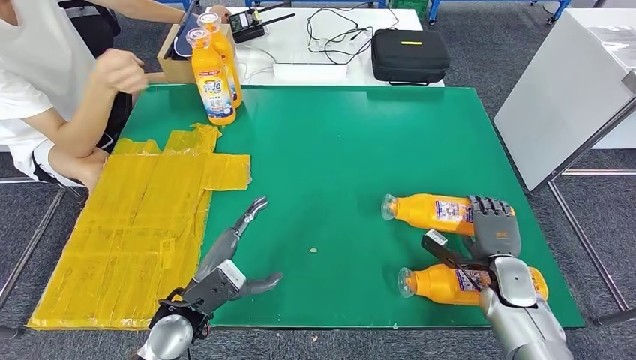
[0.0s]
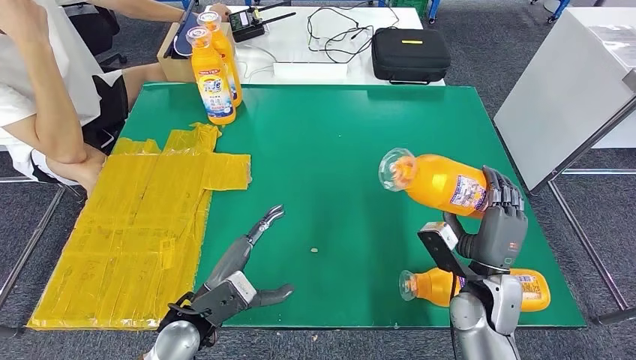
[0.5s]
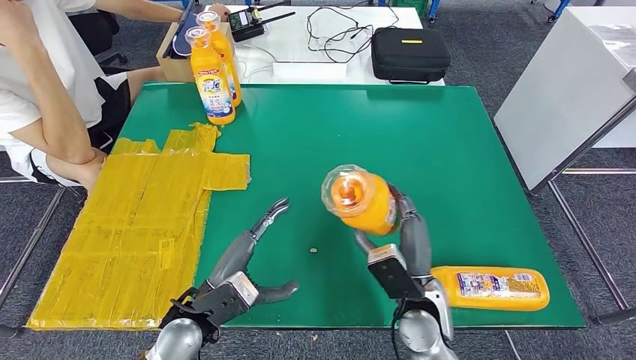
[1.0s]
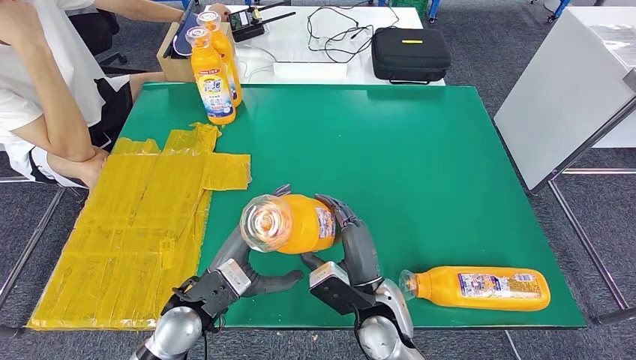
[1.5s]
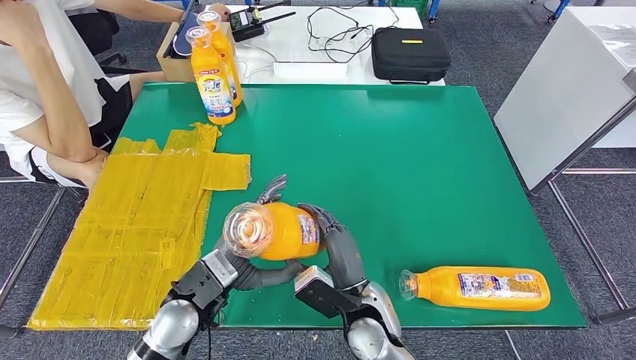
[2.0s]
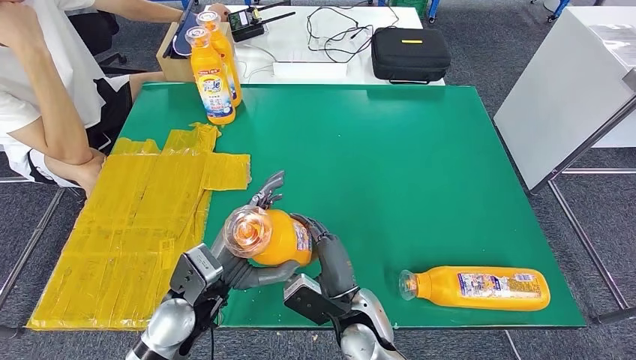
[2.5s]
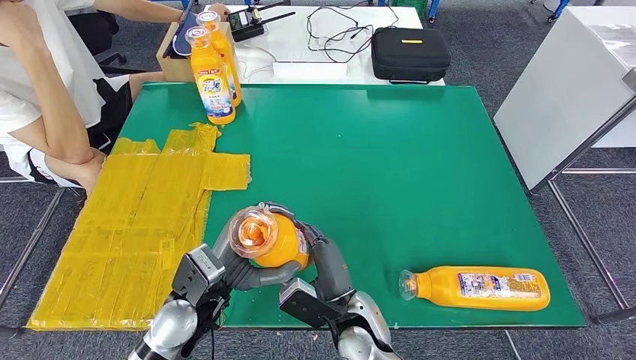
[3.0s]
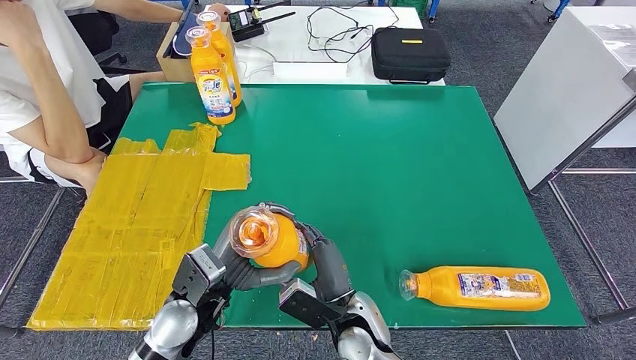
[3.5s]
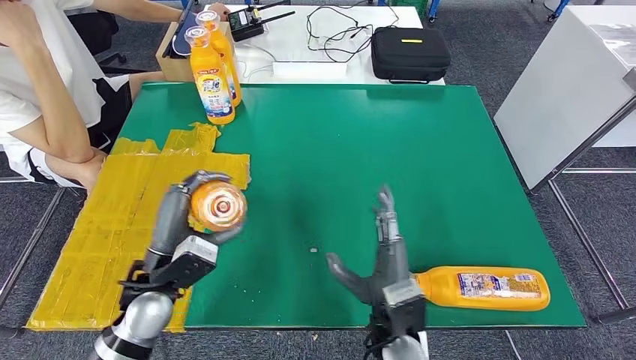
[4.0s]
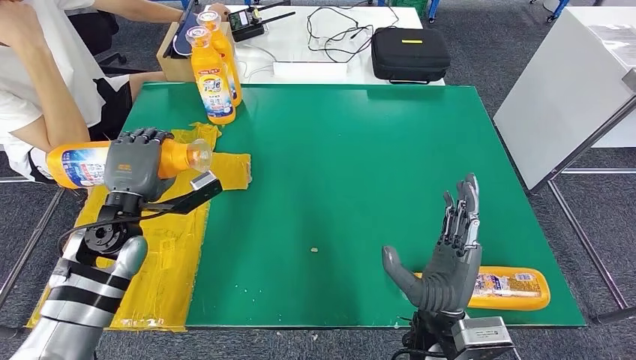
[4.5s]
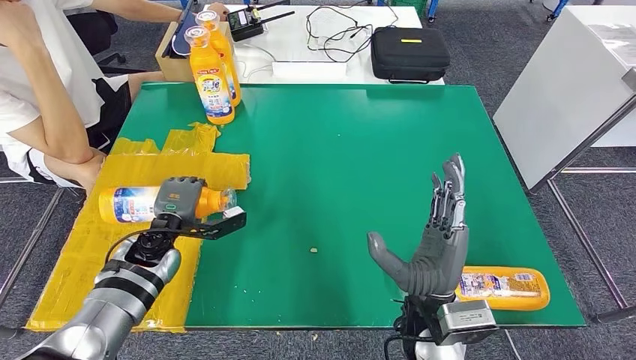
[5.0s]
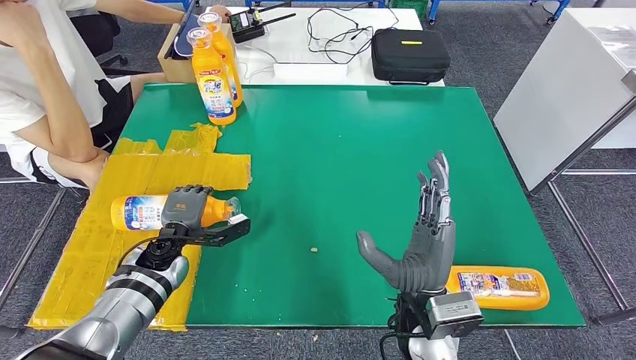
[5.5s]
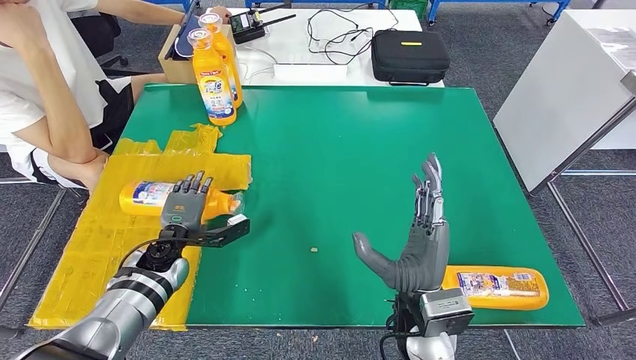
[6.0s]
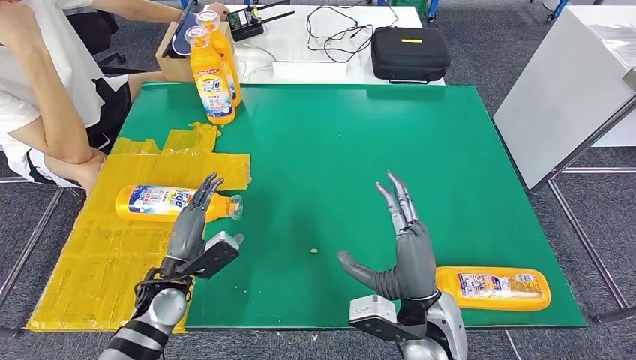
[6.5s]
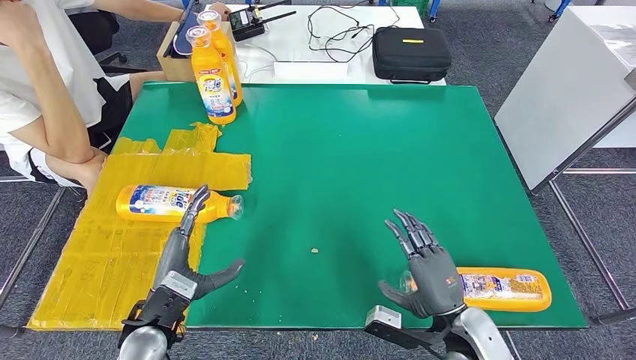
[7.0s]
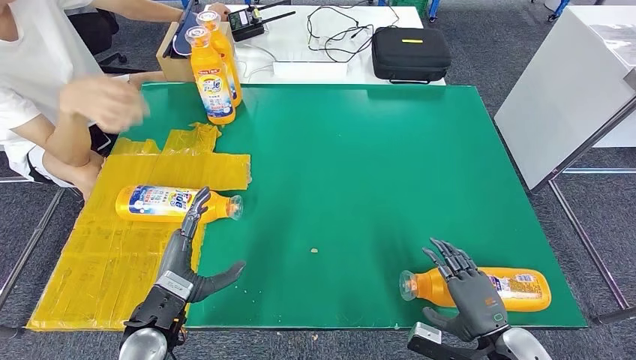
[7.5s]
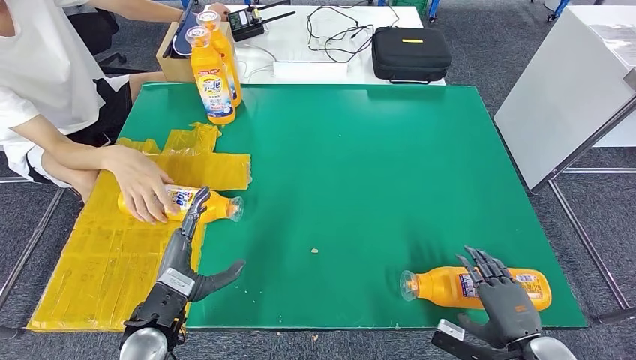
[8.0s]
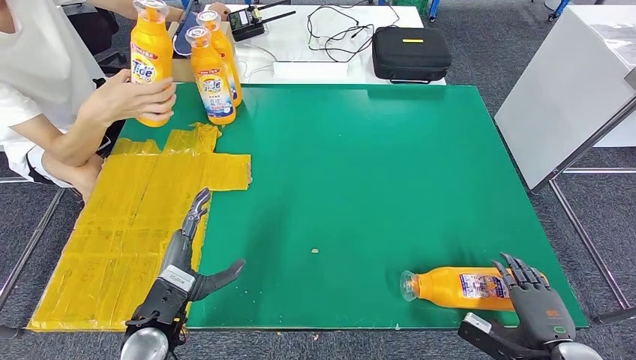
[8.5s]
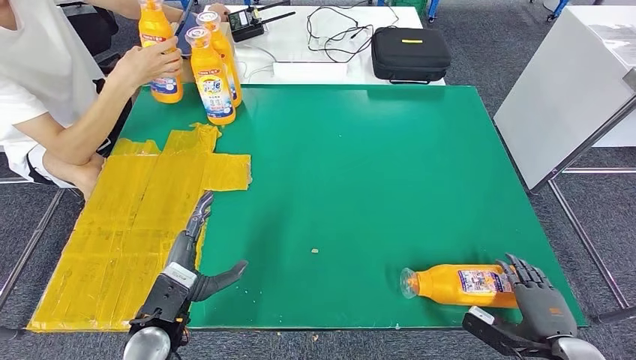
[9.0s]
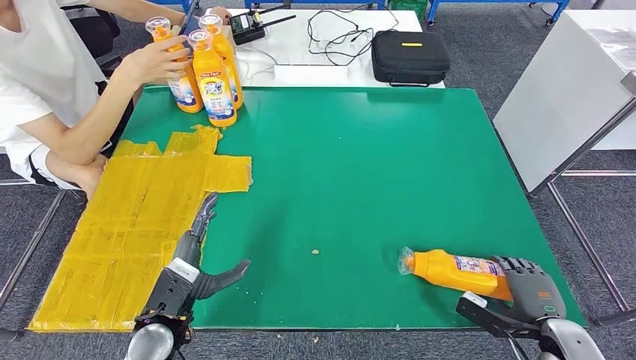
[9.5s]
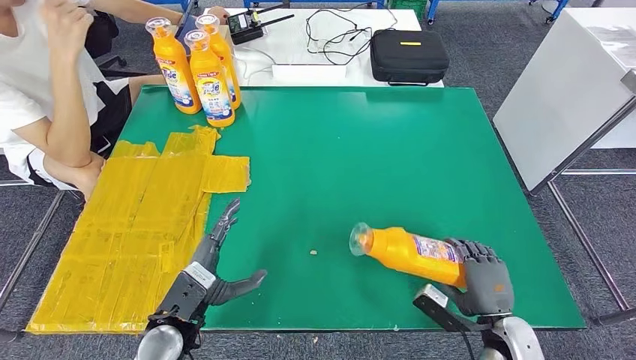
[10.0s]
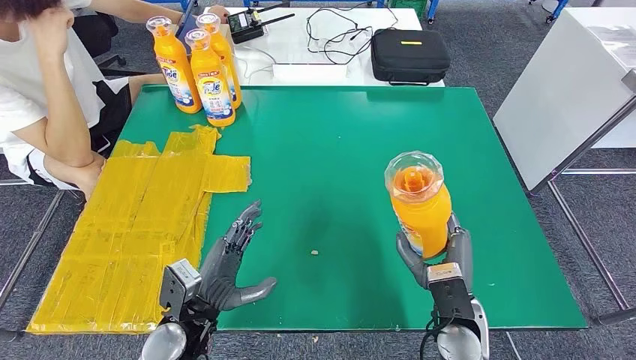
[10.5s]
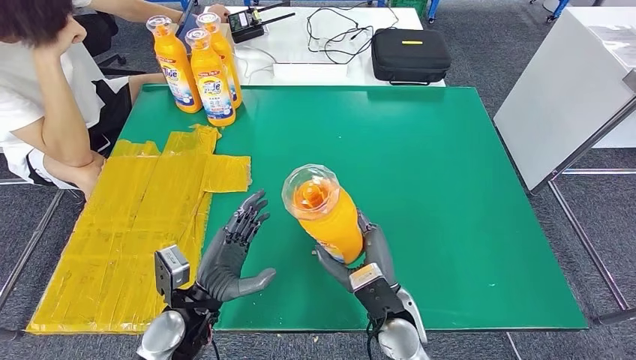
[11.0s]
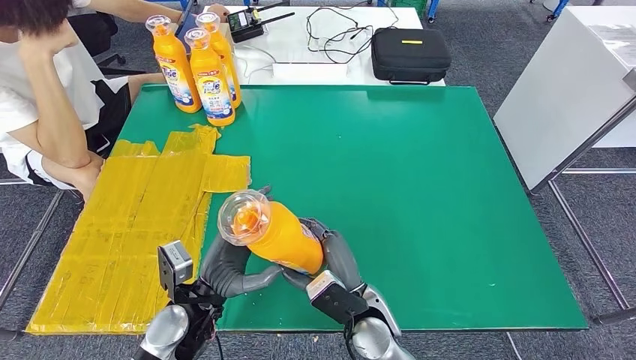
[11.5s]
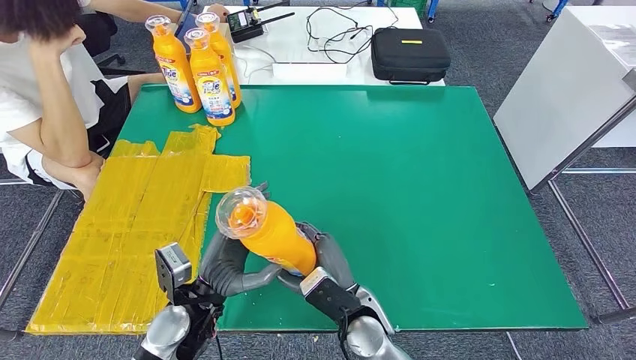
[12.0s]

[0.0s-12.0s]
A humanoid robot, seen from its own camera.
Step, 1.5s to 7.0s: Flip the fast-moving consumer goods bottle to the front side.
Step, 8.5s to 10.5s: Pick up the fast-moving consumer goods bottle from the table.
2.0s to 4.0s: The left hand heads to the left, covering about 5 cm.
10.0s to 12.0s: The right hand goes roughly 25 cm to the left.

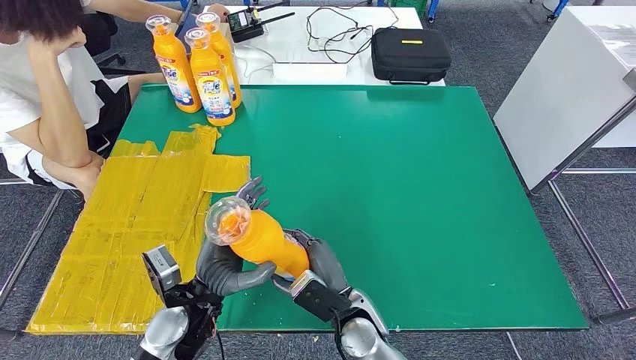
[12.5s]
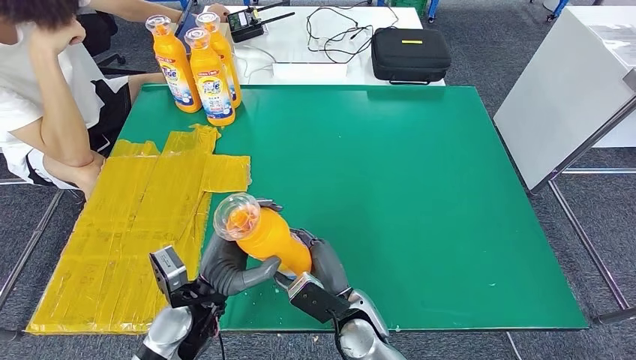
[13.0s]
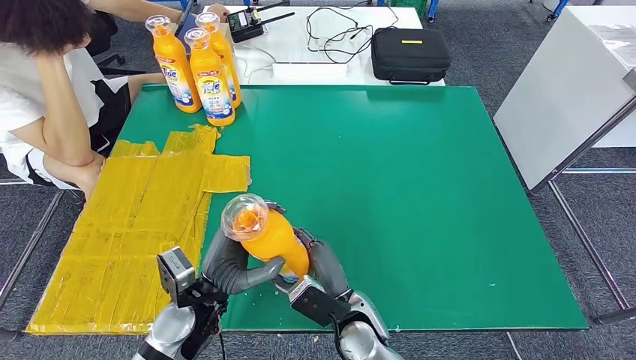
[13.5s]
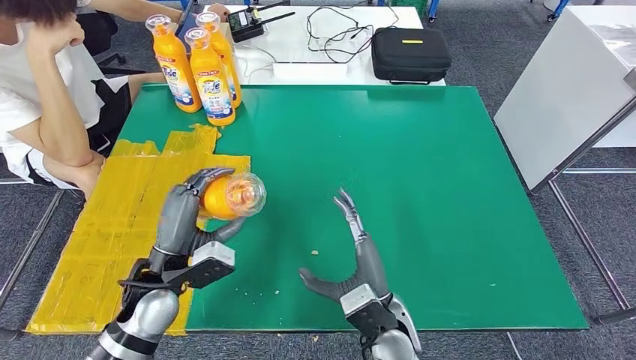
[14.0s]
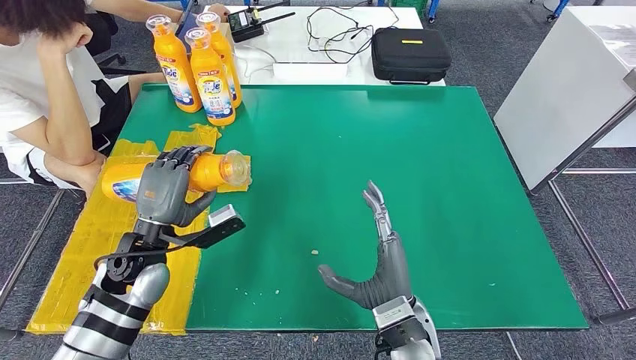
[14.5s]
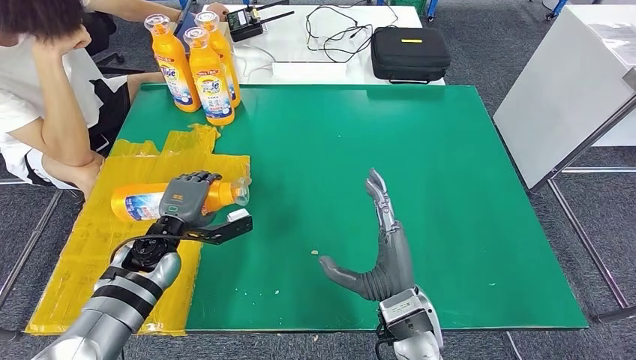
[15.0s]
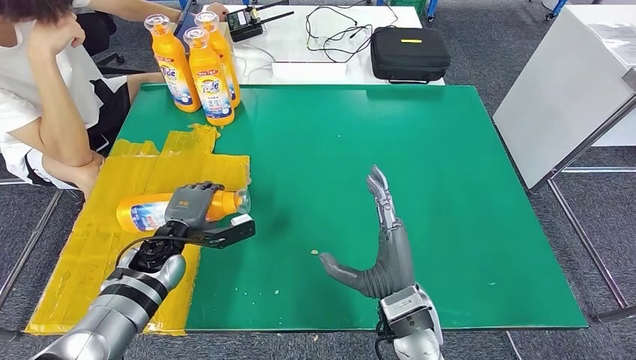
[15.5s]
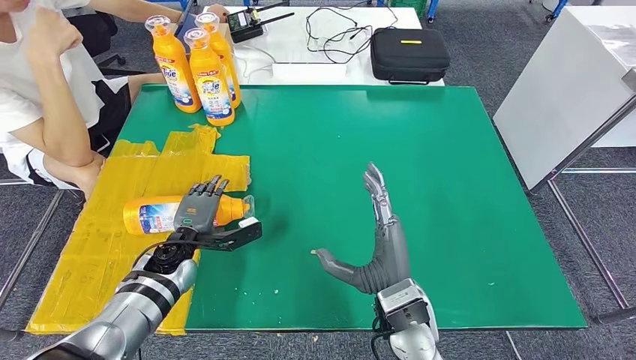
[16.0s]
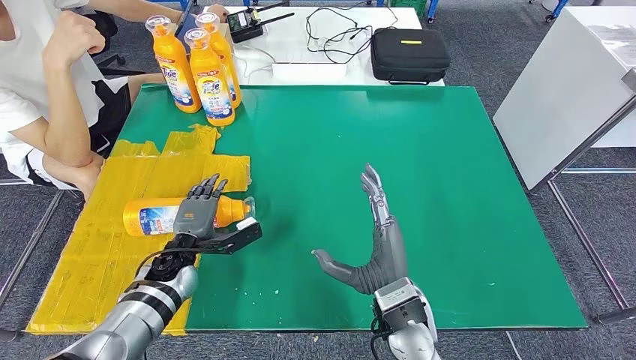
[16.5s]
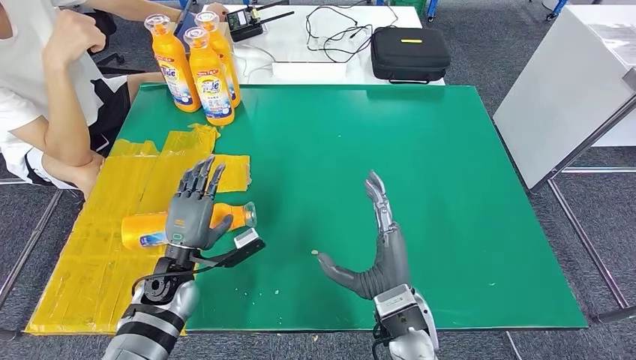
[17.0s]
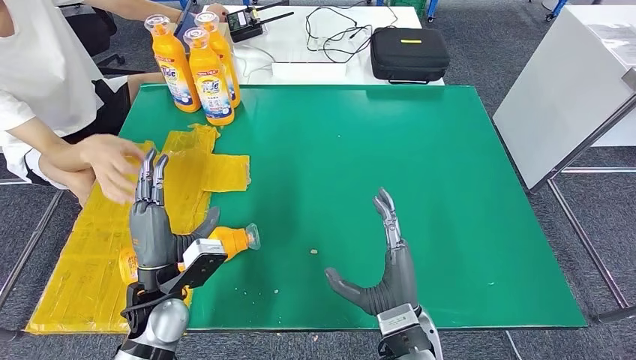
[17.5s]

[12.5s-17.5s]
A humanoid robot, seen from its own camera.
Step, 12.5s to 17.5s: Flip the fast-moving consumer goods bottle to the front side.
12.5s to 15.0s: The right hand is displaced upward and to the right by some 10 cm; the left hand is displaced forward and to the left by some 15 cm.
15.0s to 17.5s: The left hand goes about 10 cm backward.

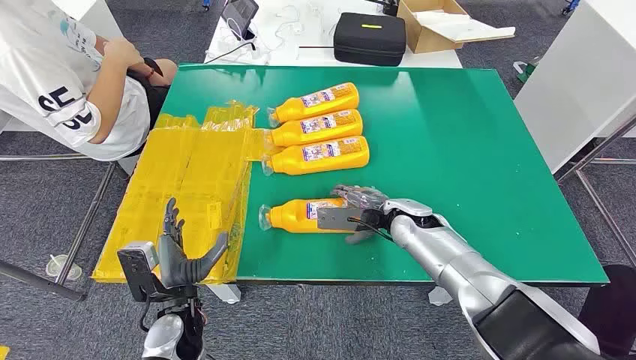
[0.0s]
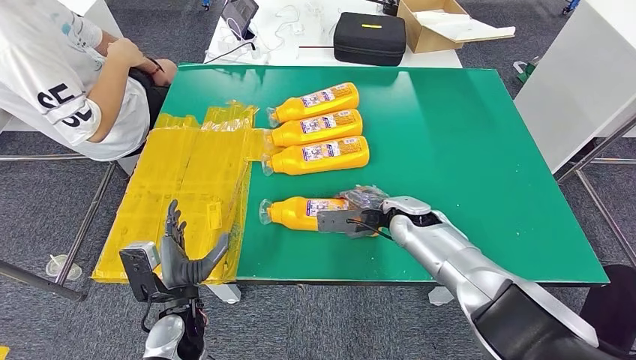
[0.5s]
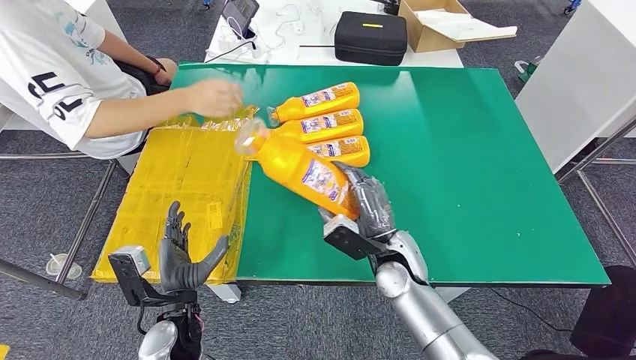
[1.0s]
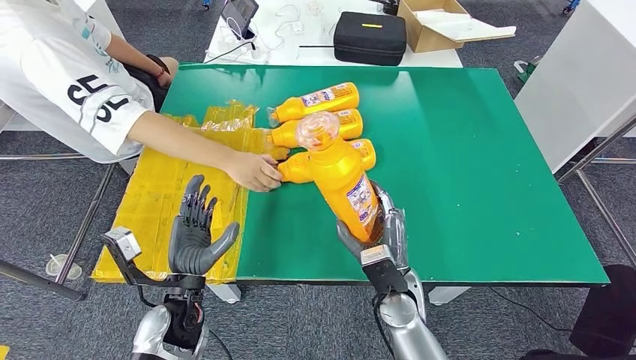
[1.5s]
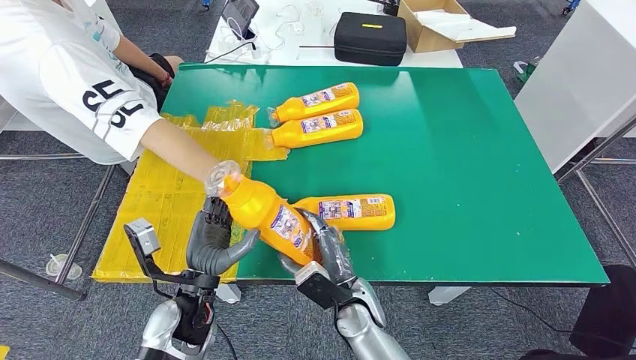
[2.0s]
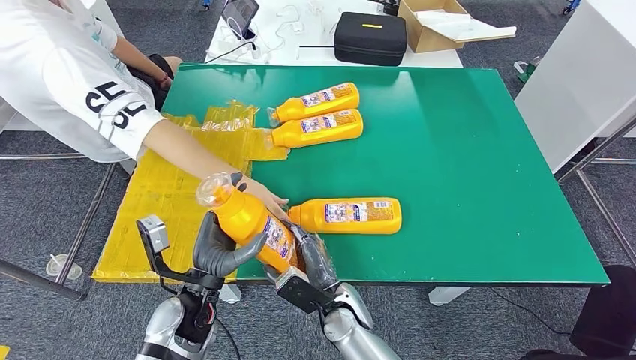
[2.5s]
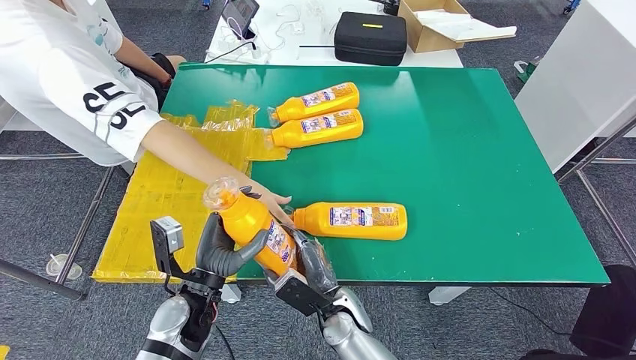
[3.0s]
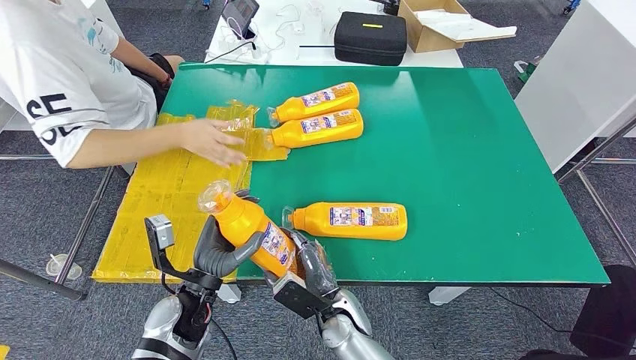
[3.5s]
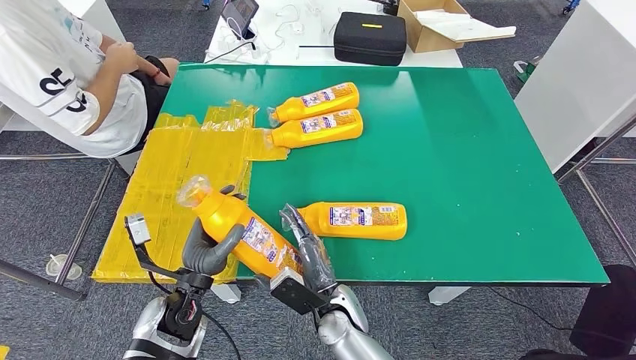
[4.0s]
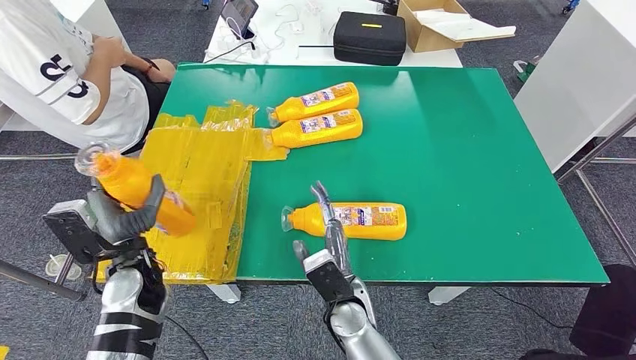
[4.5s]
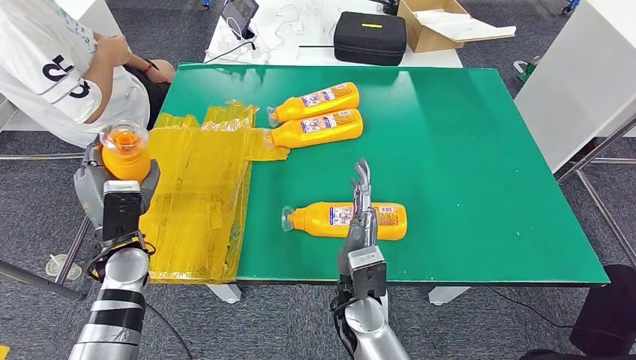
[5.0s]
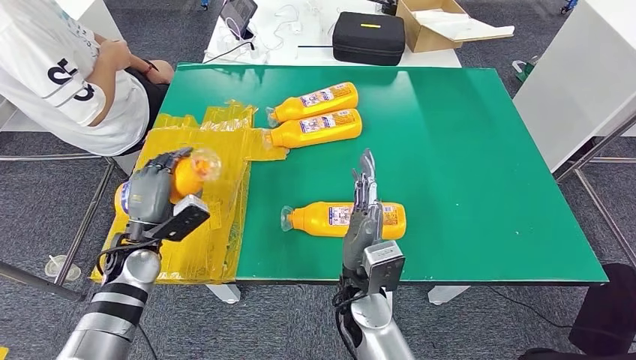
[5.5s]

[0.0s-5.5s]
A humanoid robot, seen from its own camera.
Step, 0.0s to 3.0s: Take the fast-moving consumer goods bottle from the table.
2.0s to 3.5s: The hands make only small movements.
